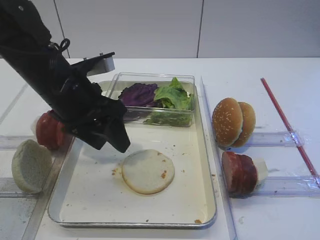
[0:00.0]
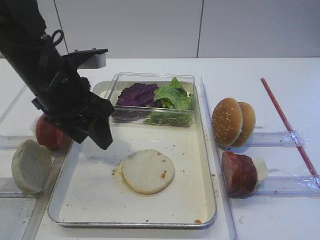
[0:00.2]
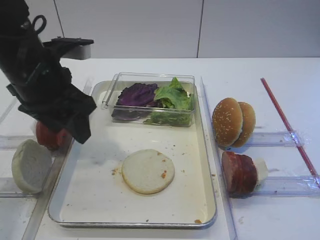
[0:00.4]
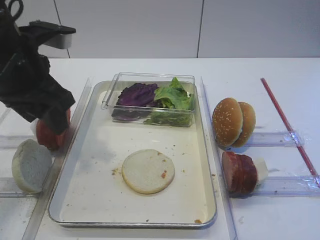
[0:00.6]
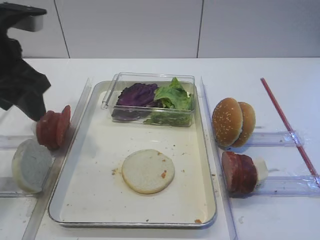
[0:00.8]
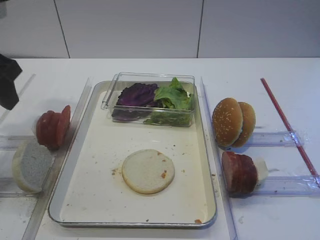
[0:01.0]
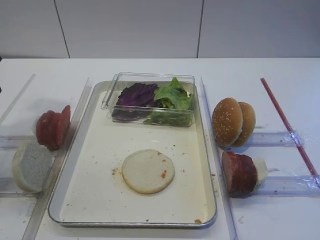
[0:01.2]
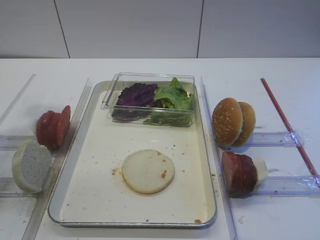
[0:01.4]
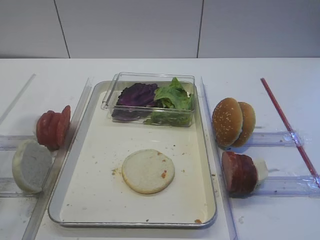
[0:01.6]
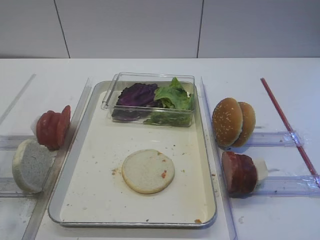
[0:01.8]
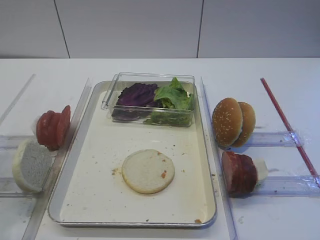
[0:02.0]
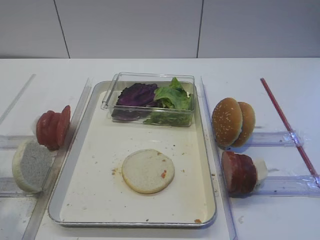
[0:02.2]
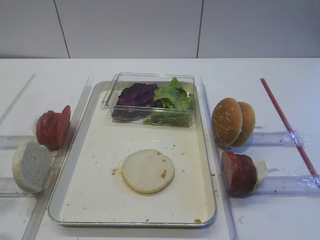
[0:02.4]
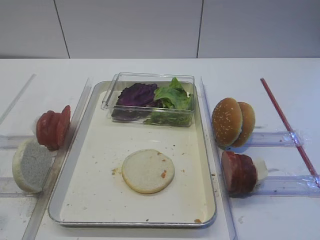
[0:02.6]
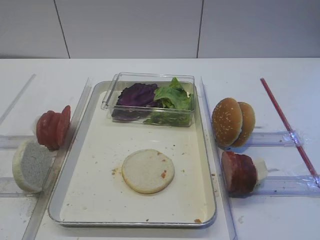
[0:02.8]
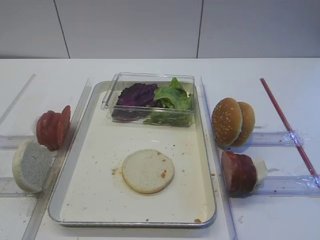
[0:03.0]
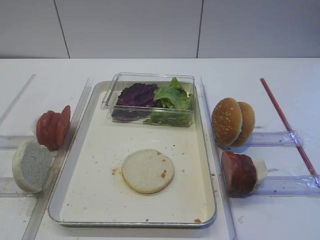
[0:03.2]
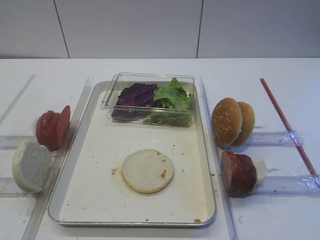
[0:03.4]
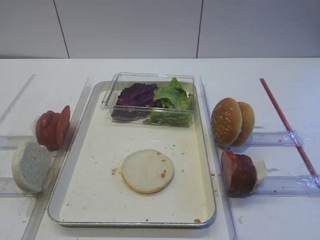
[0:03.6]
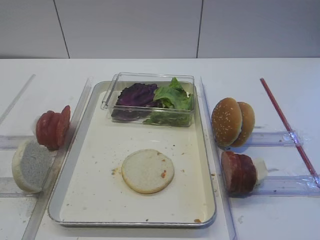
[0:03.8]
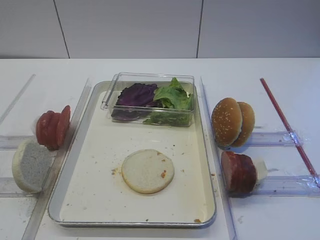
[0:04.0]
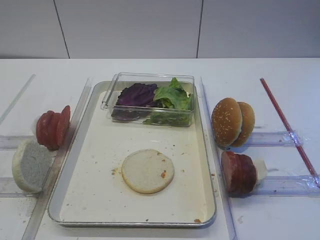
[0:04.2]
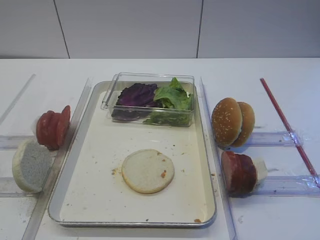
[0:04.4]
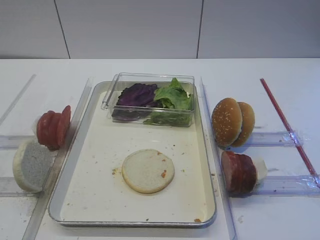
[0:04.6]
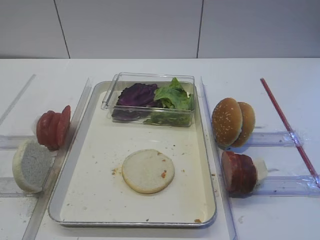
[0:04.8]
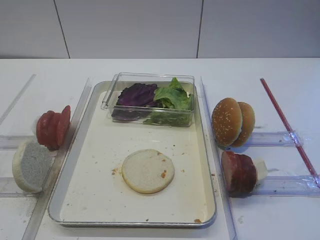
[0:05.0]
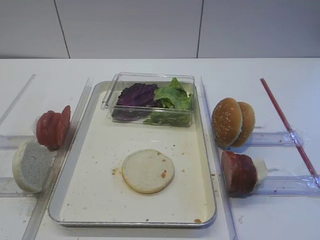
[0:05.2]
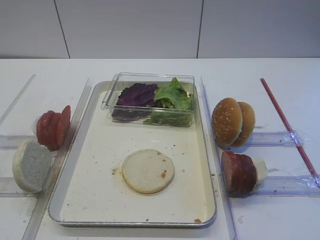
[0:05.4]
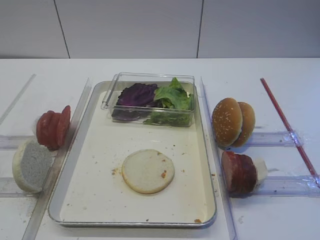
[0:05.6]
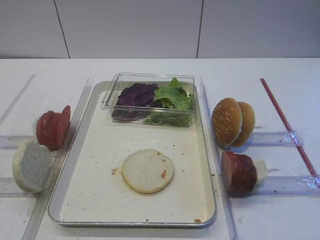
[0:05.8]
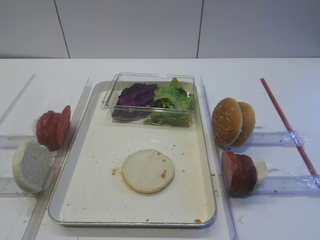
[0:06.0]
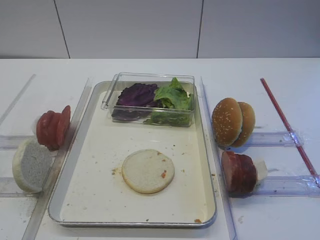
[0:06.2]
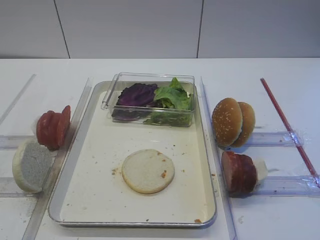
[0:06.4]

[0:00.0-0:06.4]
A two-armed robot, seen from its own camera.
0:00.0 to 0:01.6: The left gripper travels to the left, upward and backward by about 20 cm.
0:01.6 to 0:03.2: The left gripper goes some 20 cm backward.
0:03.2 to 0:06.4: Neither gripper changes place.

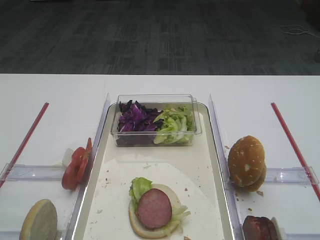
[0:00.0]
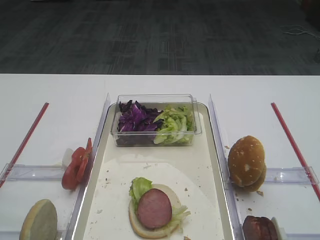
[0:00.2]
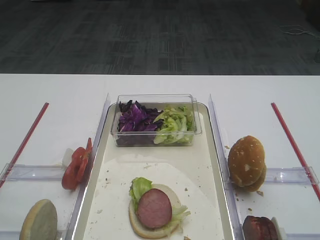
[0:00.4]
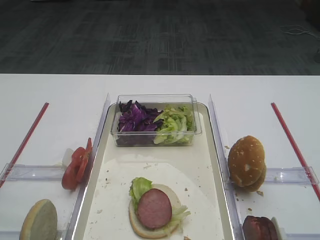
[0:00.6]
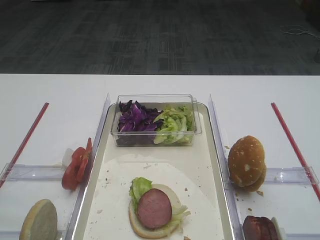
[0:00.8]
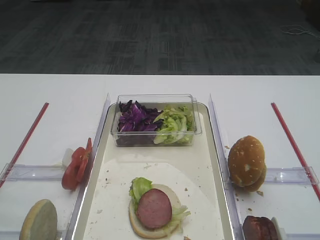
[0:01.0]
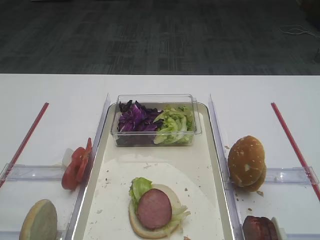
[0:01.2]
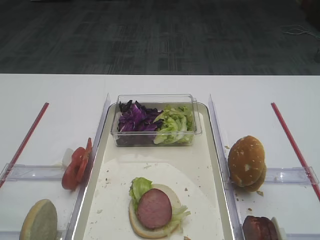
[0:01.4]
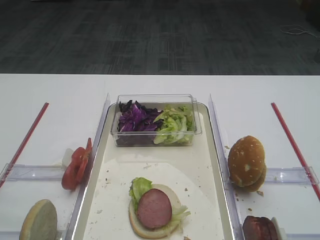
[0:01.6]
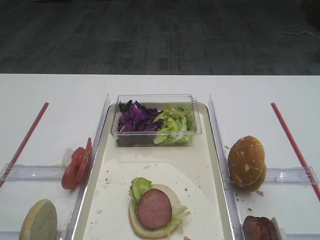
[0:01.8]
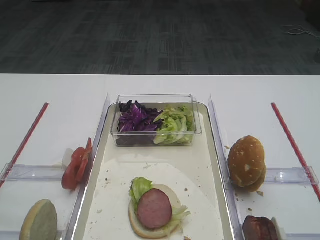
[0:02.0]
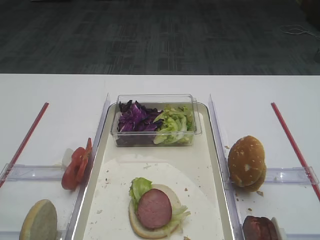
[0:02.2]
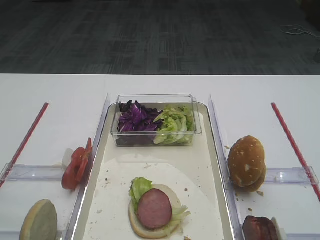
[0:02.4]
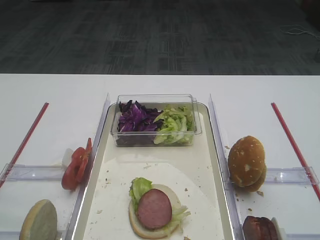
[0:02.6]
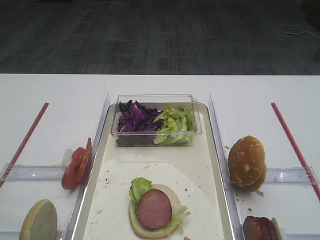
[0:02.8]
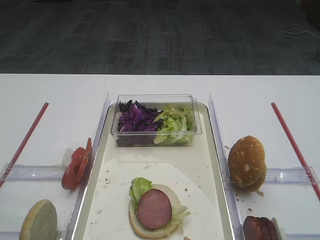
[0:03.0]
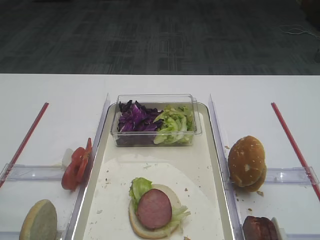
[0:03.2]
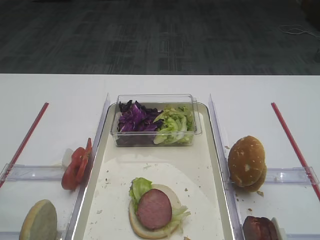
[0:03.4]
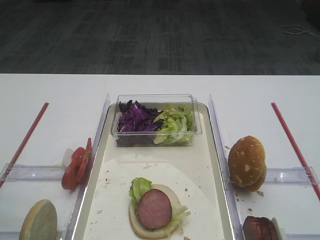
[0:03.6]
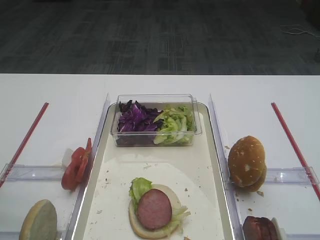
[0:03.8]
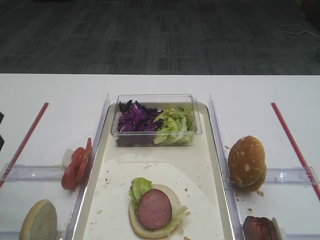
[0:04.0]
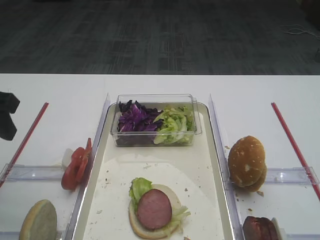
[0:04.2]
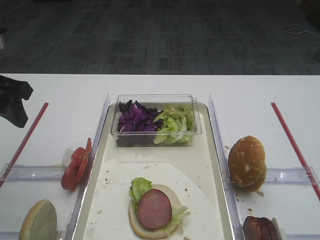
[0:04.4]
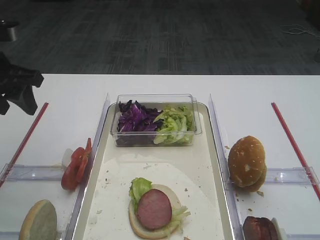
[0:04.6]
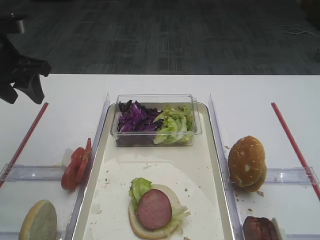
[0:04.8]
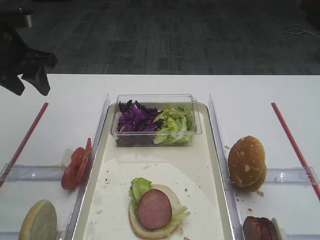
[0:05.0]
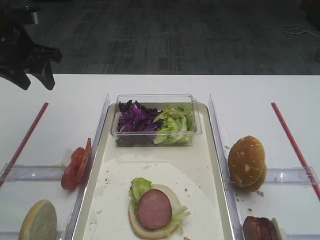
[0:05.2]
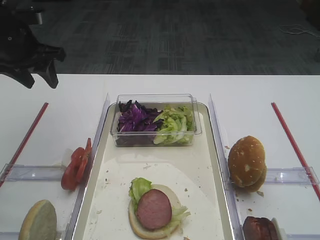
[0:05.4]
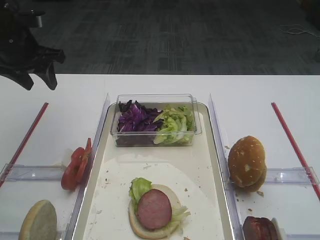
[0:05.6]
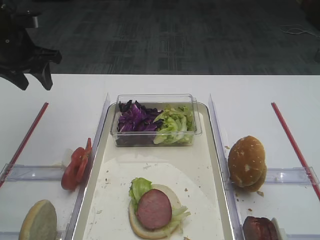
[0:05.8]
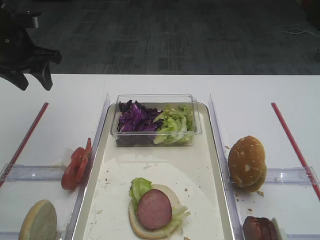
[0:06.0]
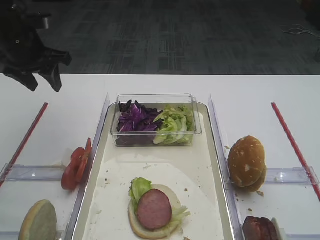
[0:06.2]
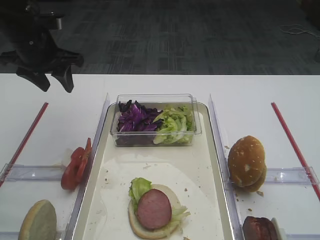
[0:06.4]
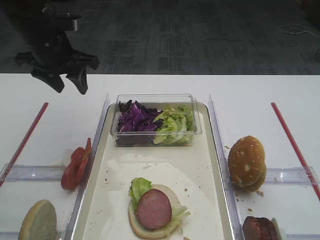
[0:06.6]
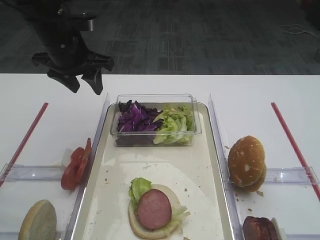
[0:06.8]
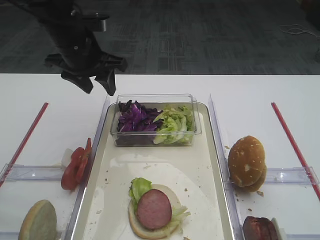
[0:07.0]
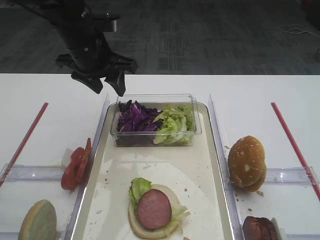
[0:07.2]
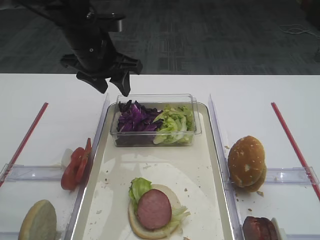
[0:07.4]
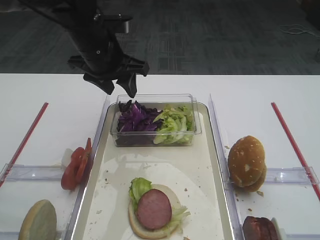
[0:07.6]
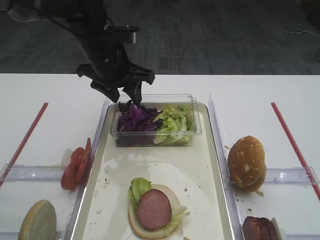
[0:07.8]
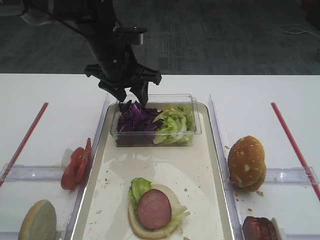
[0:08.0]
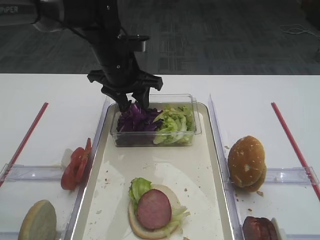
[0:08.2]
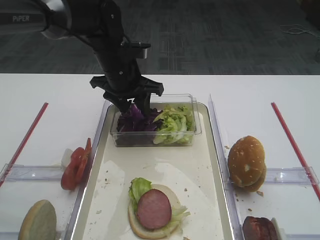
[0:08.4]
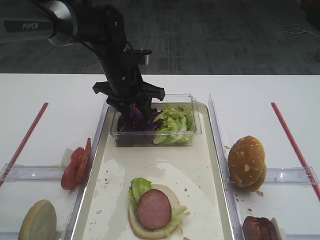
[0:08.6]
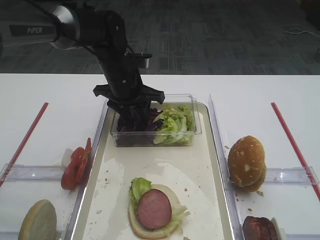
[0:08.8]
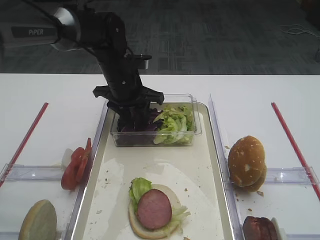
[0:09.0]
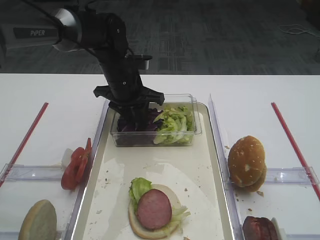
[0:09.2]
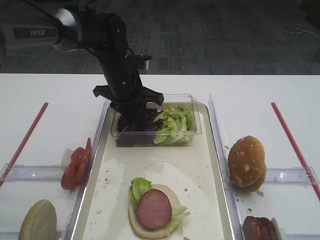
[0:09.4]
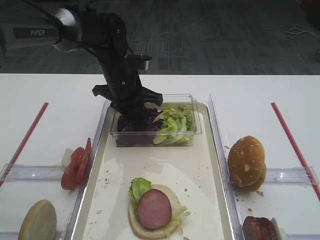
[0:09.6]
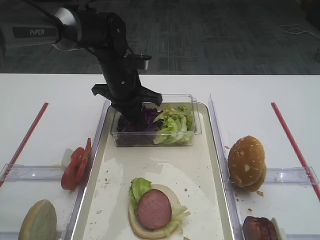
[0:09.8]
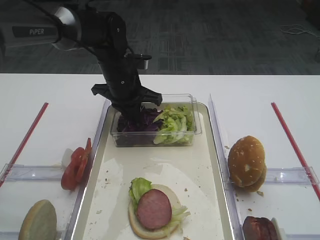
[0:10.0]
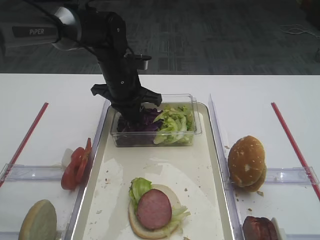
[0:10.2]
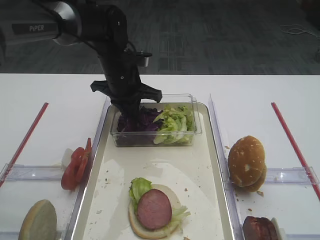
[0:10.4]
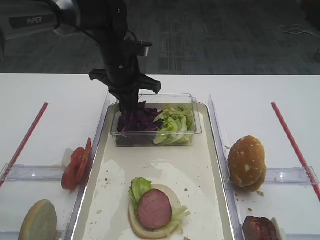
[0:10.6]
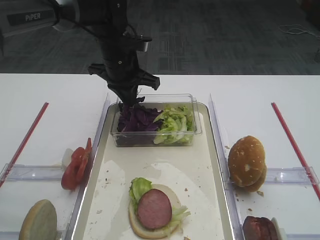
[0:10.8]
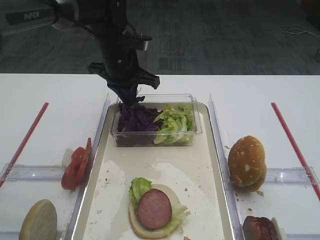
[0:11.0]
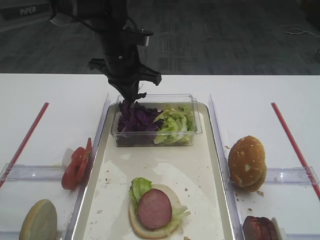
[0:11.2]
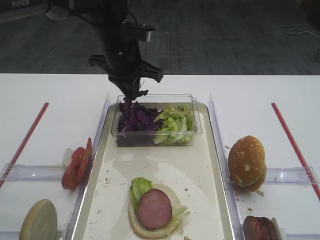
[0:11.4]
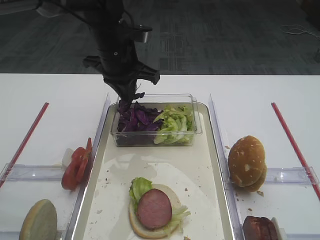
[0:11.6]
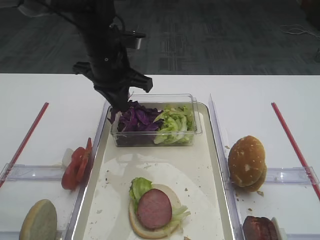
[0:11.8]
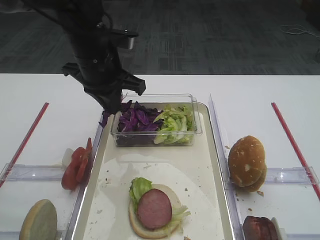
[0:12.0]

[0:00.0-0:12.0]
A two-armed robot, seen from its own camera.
Step, 0:00.0 to 0:11.6: Pick up the purple cabbage with the left gripper.
0:03.0 to 0:04.4: The left gripper heads forward, covering roughly 20 cm.
0:04.4 to 0:06.0: The left gripper goes about 15 cm forward.
0:06.0 to 0:07.6: The left gripper moves to the right, approximately 15 cm.
0:07.6 to 0:09.0: The left gripper is displaced downward by roughly 10 cm.
0:09.0 to 0:10.4: The left gripper closes up.
0:10.4 to 0:12.0: The left gripper heads upward and backward, covering about 10 cm.

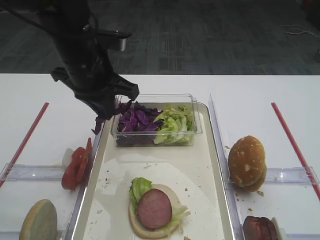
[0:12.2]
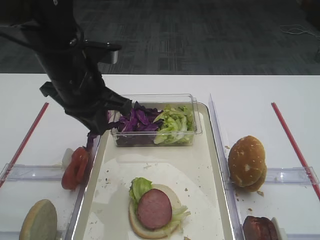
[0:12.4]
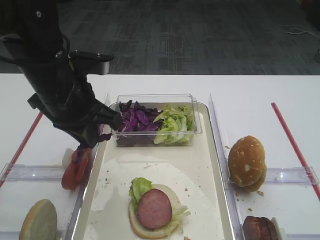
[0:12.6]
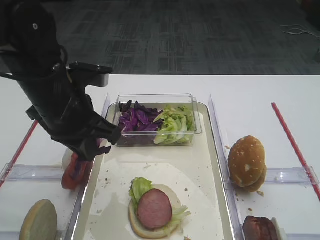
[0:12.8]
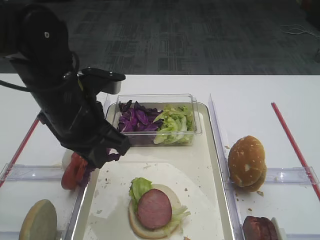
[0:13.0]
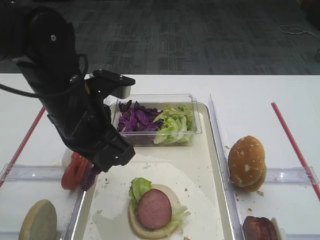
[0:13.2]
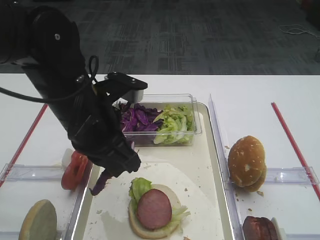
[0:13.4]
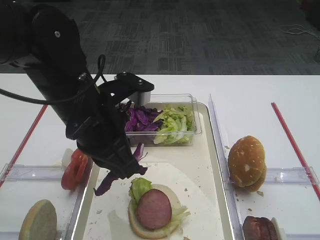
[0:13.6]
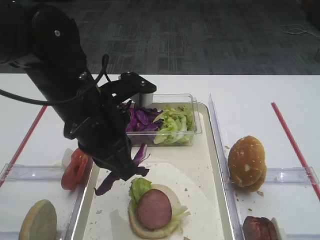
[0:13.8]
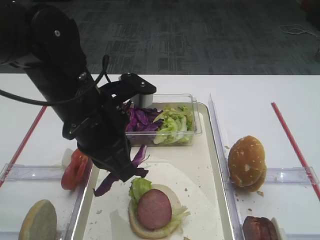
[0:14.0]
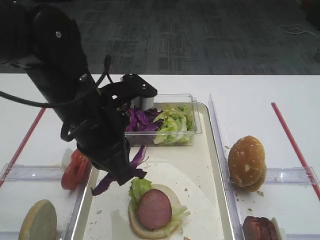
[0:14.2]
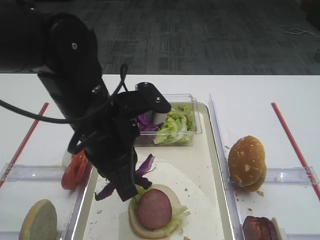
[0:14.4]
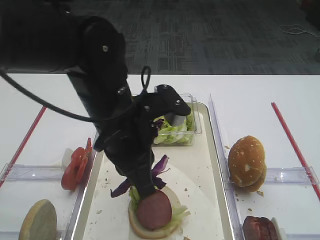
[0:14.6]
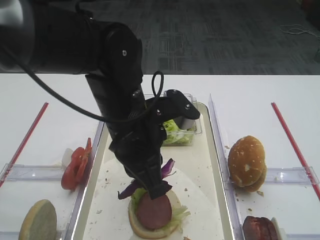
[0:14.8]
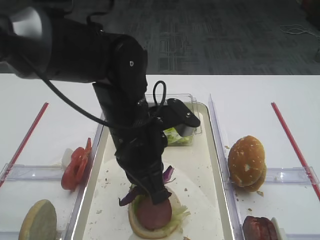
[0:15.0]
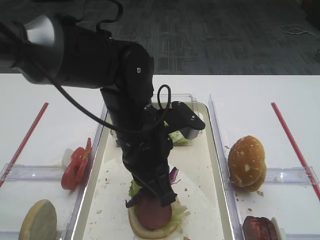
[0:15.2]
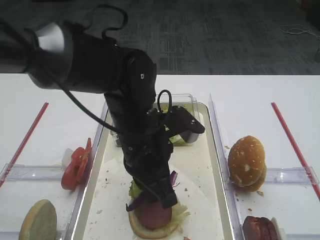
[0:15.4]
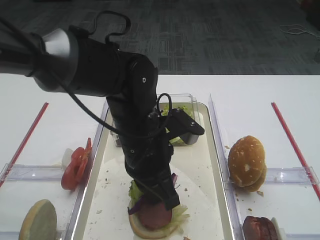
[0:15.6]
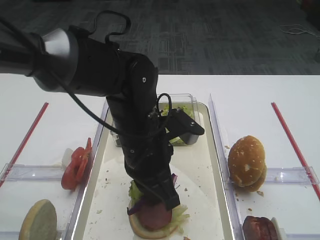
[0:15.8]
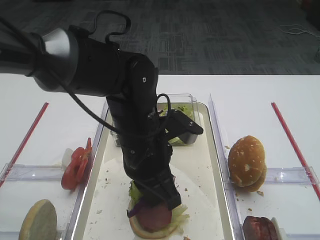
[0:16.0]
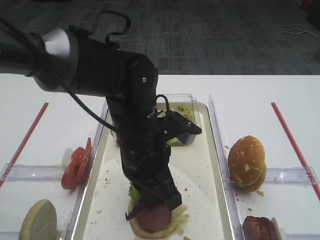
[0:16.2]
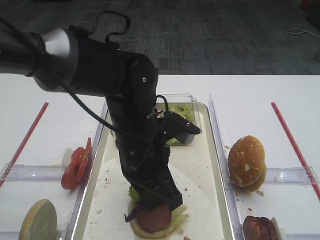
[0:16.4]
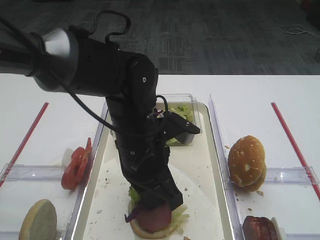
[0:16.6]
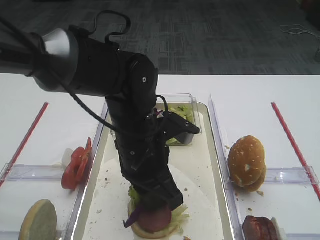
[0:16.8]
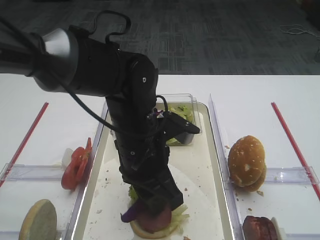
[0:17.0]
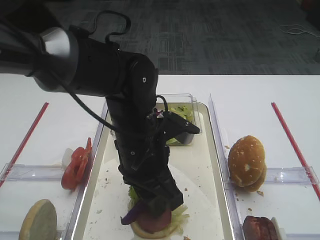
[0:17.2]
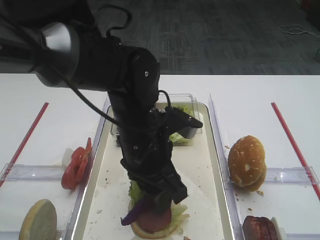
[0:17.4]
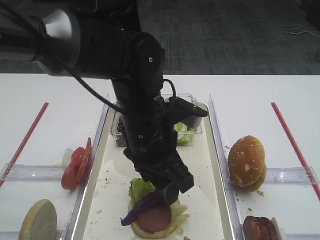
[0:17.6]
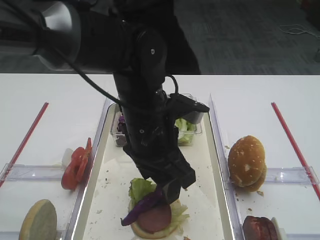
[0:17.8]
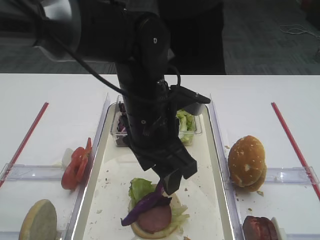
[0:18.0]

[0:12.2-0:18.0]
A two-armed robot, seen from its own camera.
0:12.2 to 0:13.6: The left gripper shifts approximately 10 cm backward.
0:13.6 to 0:15.0: The left gripper is displaced to the right by some 5 cm.
0:15.0 to 0:16.6: There are only small adjustments of the grippers.
0:16.6 to 0:18.0: The left gripper opens.
